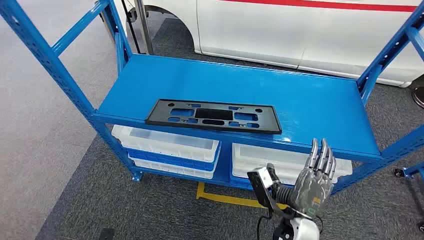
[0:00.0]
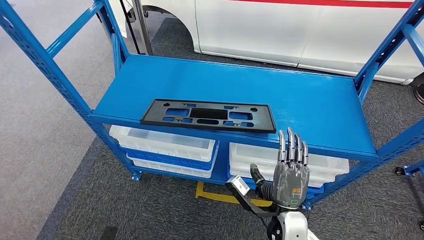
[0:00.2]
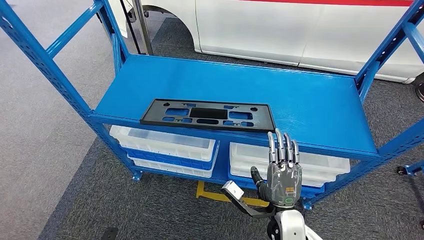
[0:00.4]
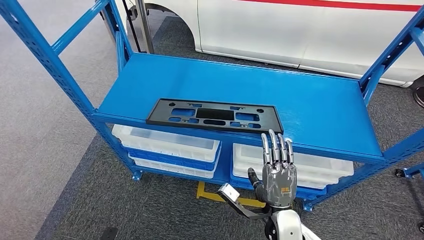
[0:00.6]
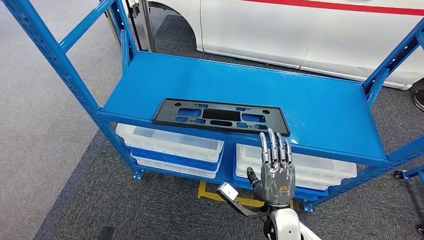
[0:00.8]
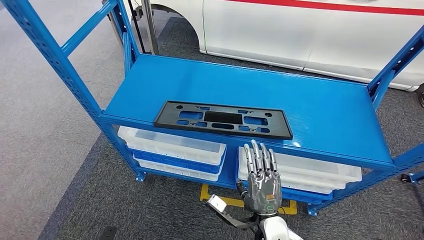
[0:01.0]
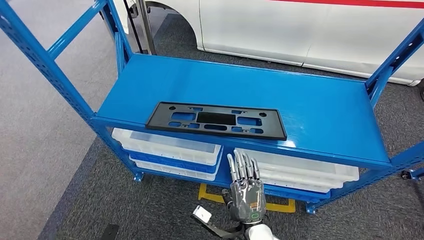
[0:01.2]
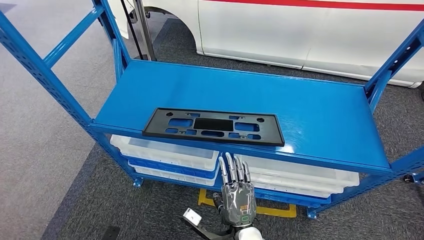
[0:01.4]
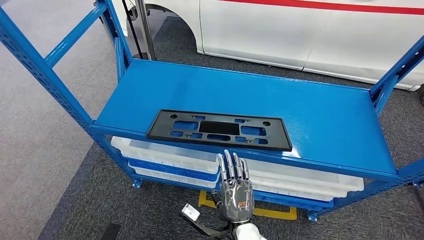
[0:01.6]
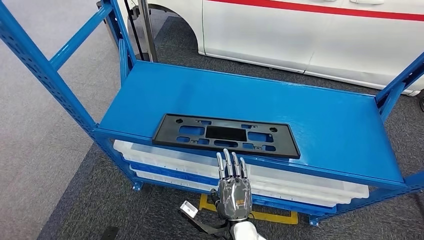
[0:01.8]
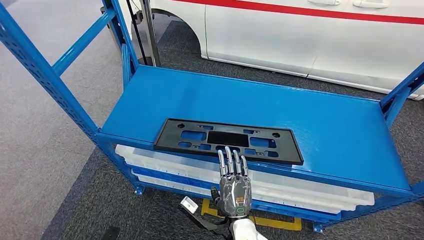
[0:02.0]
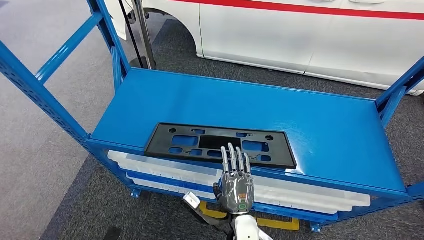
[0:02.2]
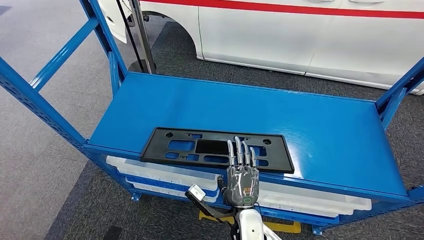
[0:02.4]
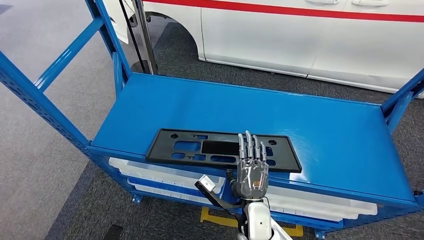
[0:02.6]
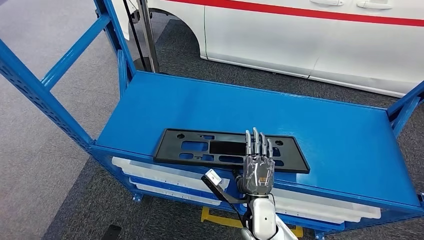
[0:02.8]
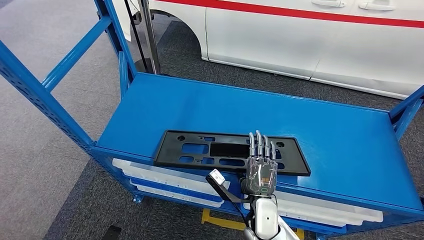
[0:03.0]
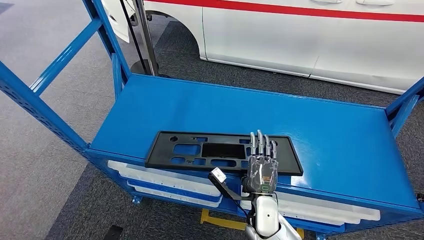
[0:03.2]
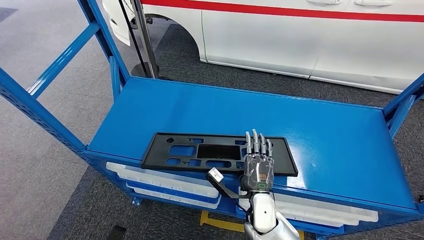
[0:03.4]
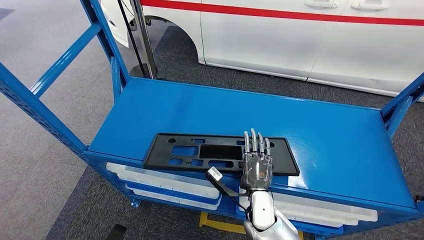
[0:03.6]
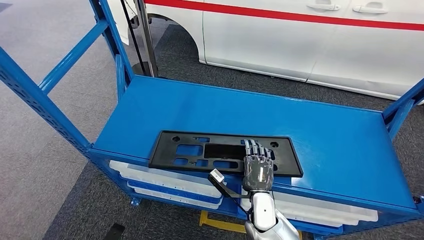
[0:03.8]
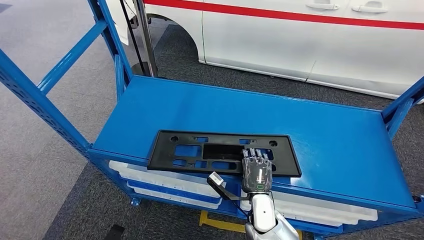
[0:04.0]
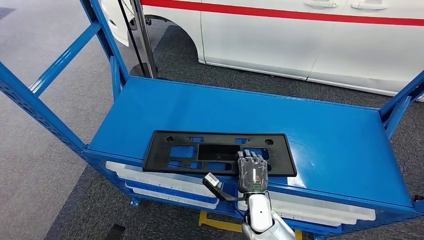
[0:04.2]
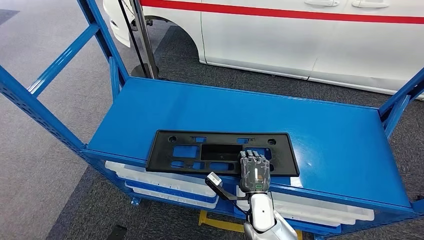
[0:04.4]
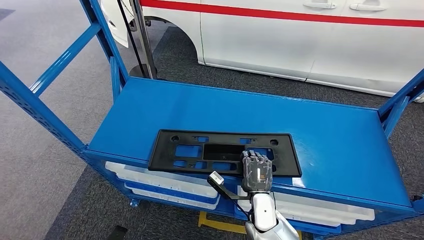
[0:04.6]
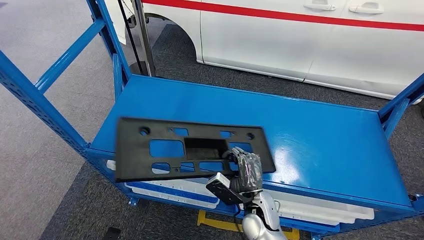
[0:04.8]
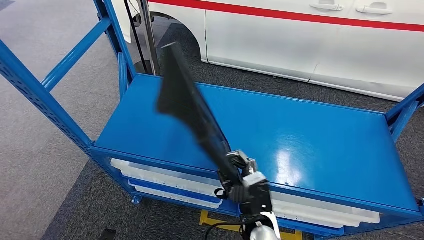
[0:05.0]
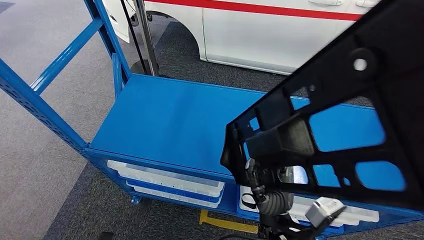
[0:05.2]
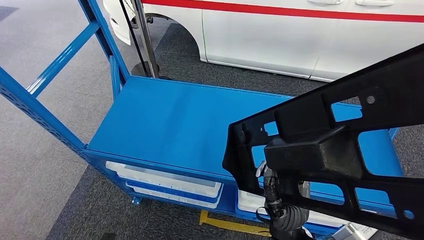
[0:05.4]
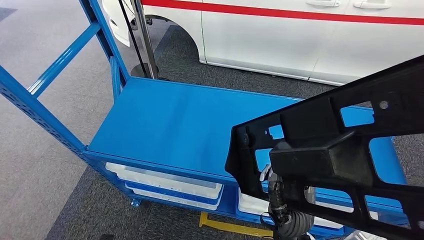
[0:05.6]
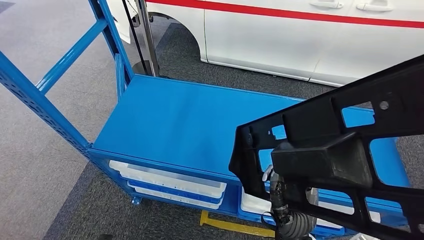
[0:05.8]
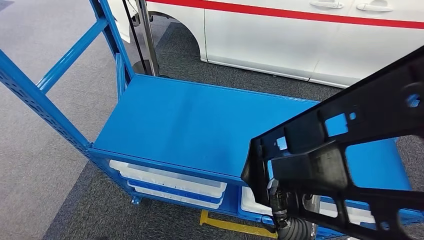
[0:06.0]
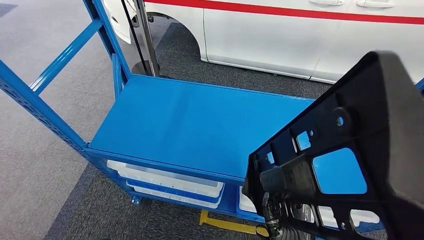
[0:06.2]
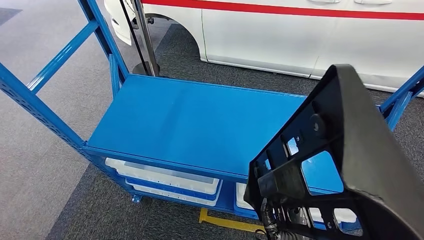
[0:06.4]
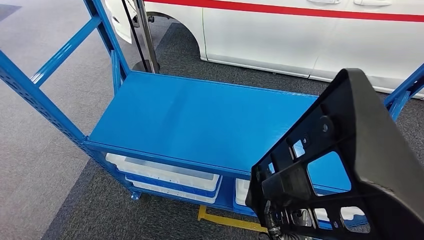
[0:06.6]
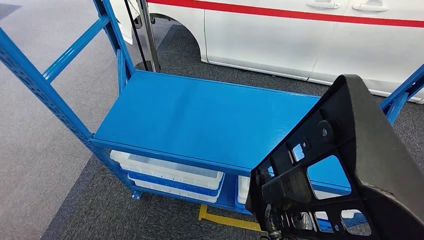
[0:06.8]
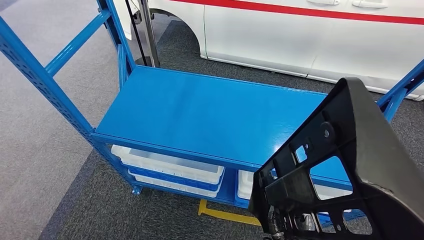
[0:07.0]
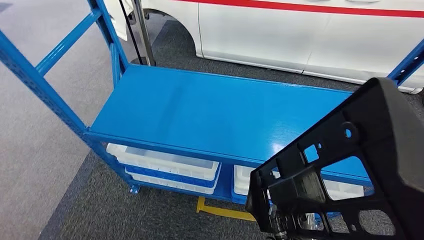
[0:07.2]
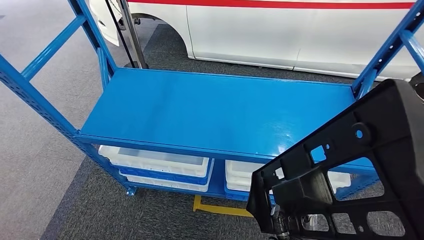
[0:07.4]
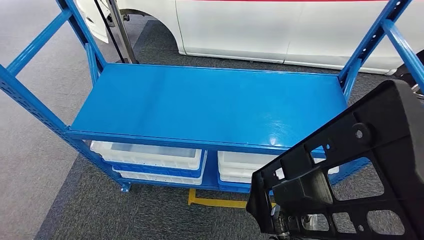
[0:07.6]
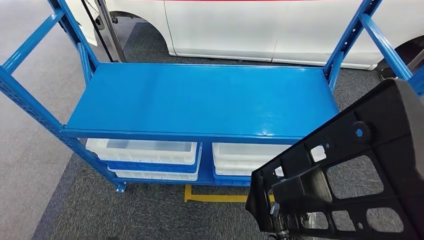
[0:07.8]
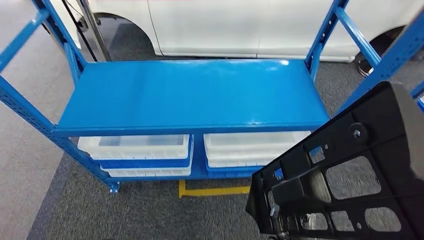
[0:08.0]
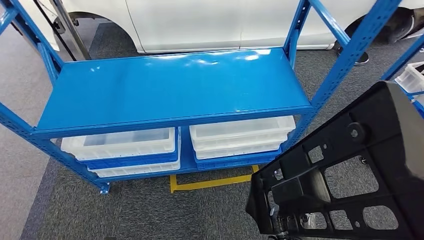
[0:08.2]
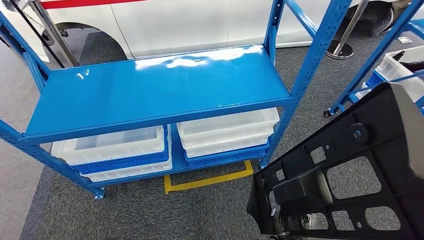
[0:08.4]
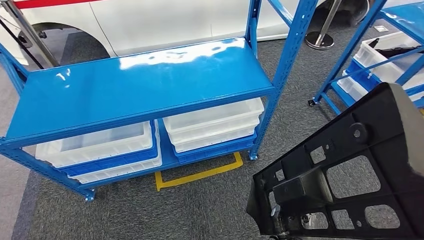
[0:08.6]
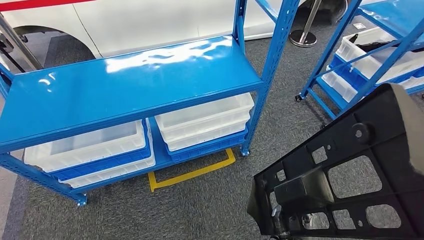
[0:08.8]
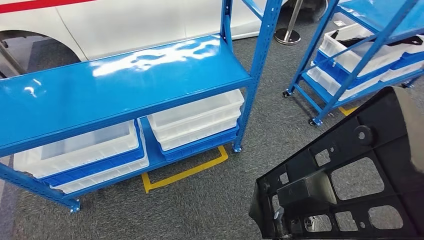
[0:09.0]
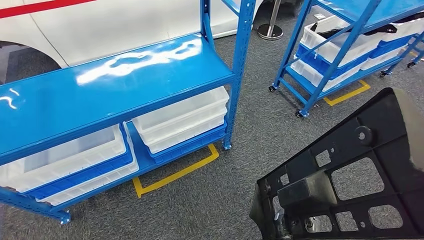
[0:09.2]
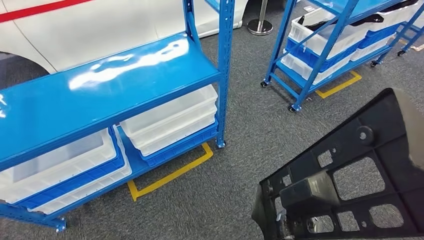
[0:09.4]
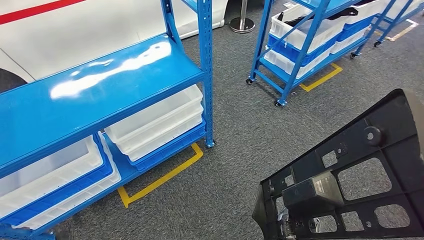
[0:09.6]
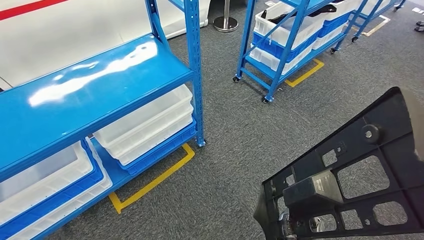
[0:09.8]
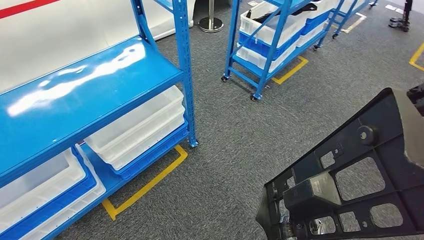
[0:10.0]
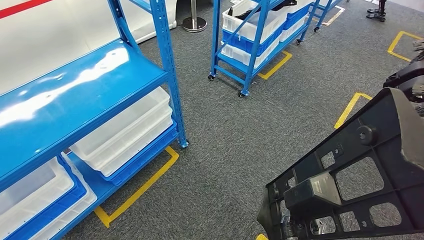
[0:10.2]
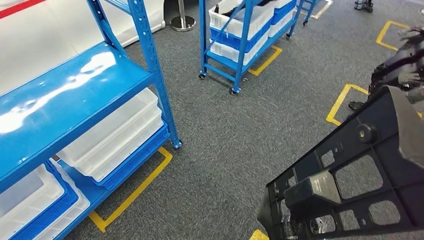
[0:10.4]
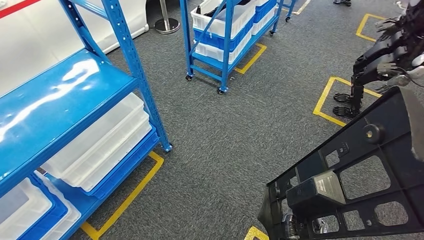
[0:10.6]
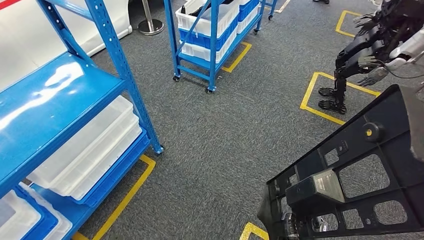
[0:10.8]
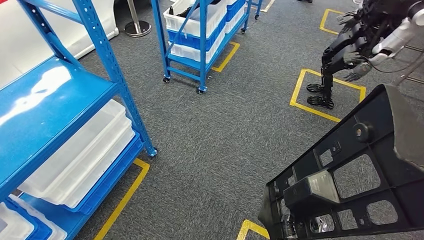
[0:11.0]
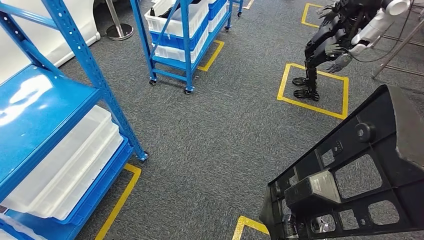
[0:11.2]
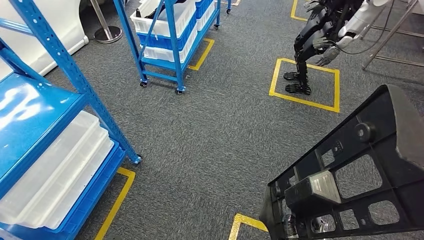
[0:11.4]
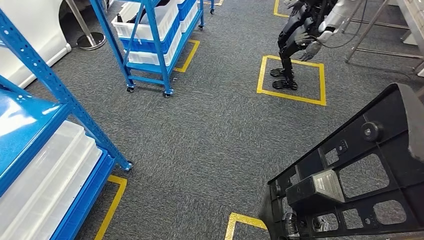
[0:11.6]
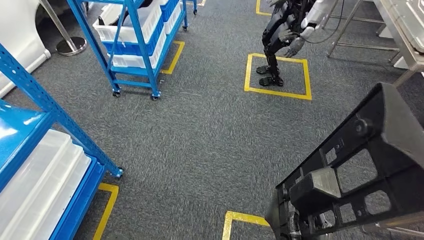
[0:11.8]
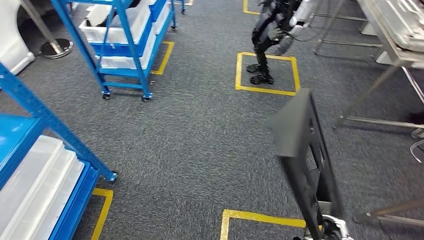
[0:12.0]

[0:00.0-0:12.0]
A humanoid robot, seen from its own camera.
Step, 0:00.0 to 0:05.6: Pick up the large material from the shelf.

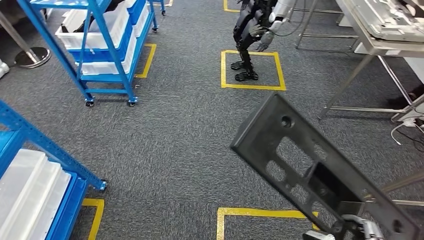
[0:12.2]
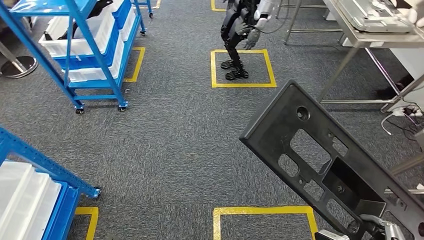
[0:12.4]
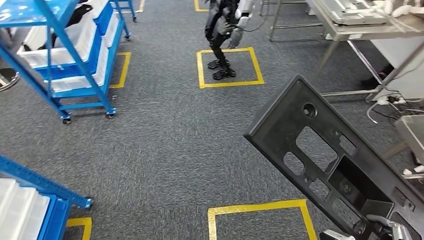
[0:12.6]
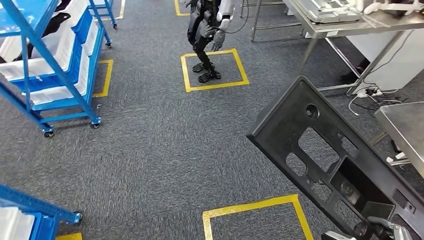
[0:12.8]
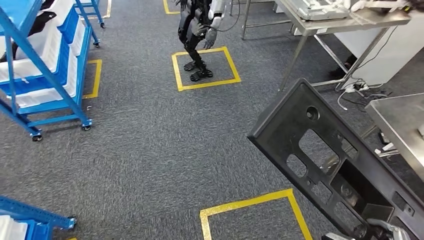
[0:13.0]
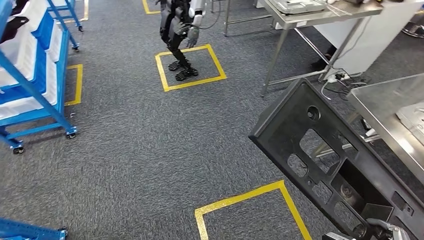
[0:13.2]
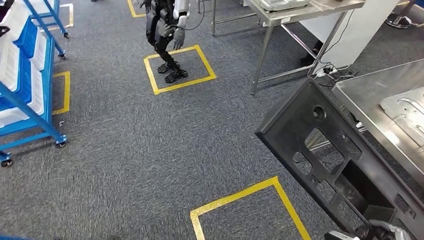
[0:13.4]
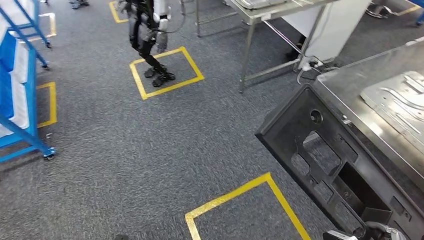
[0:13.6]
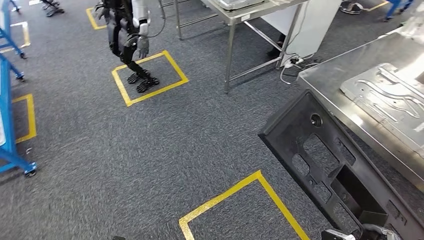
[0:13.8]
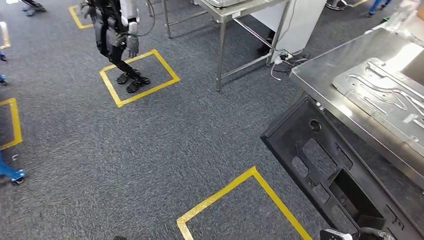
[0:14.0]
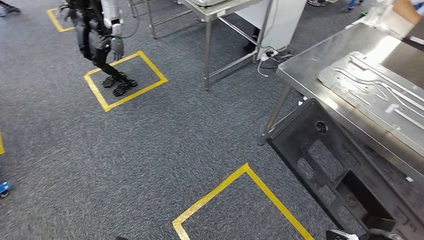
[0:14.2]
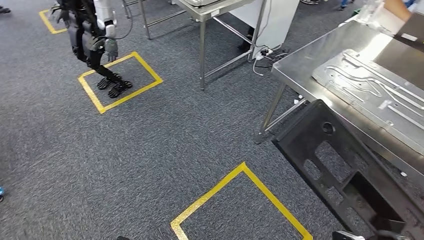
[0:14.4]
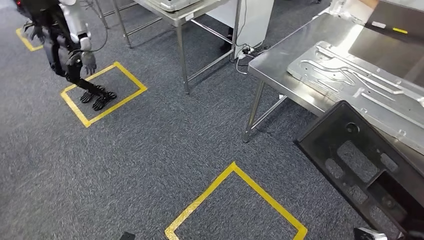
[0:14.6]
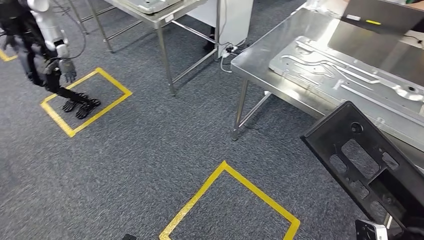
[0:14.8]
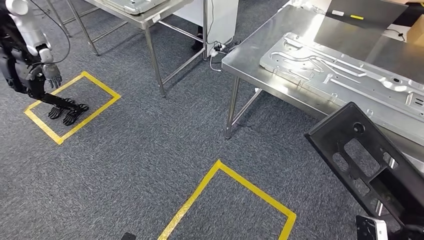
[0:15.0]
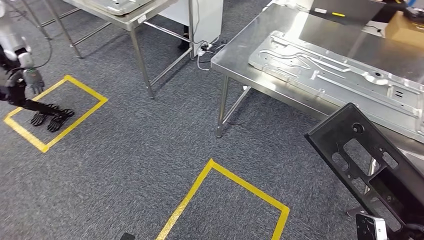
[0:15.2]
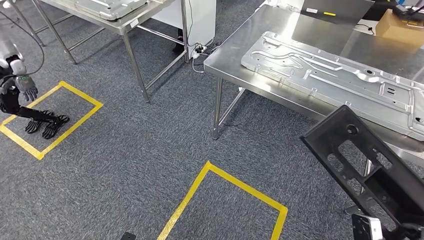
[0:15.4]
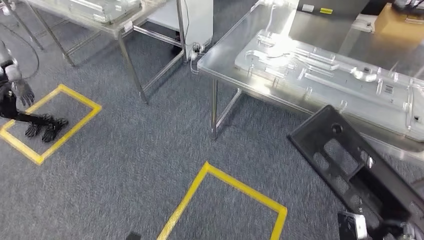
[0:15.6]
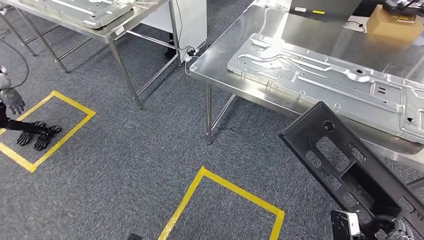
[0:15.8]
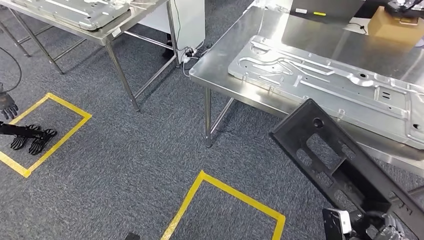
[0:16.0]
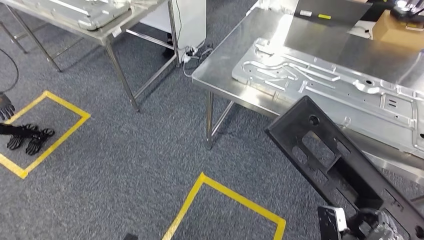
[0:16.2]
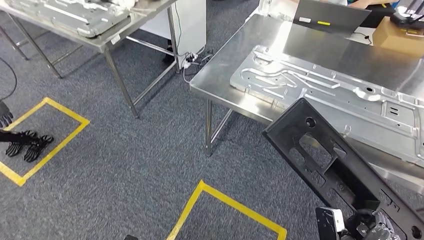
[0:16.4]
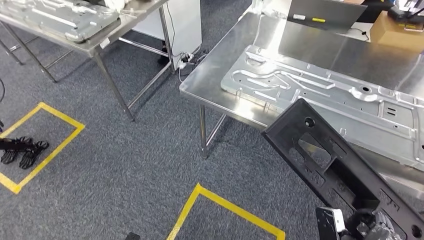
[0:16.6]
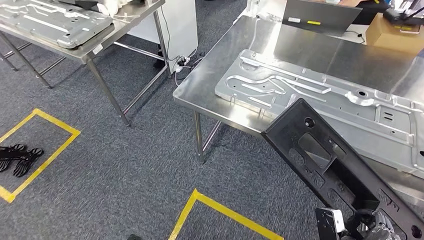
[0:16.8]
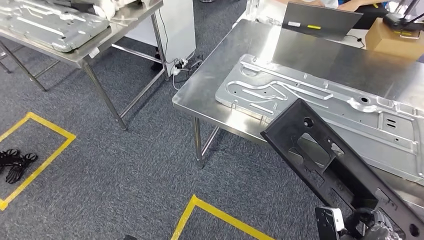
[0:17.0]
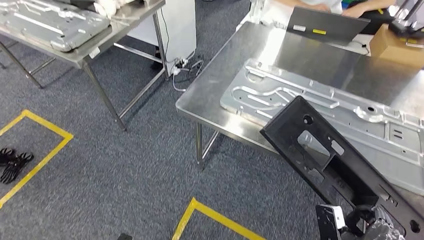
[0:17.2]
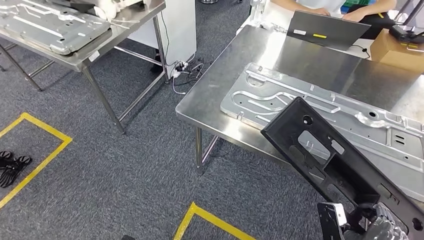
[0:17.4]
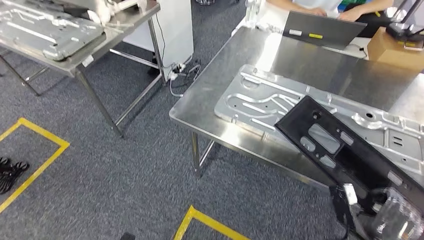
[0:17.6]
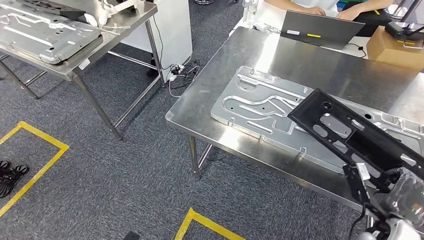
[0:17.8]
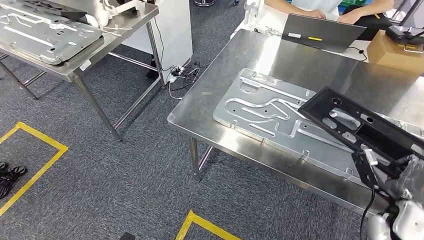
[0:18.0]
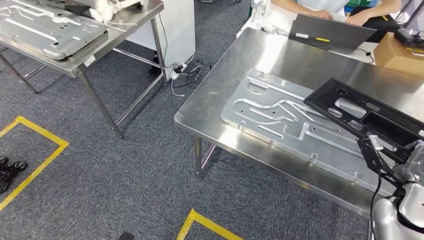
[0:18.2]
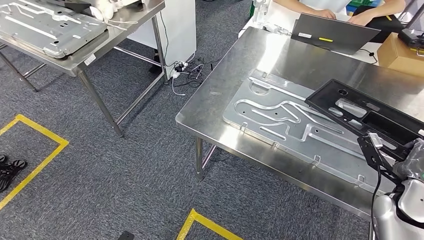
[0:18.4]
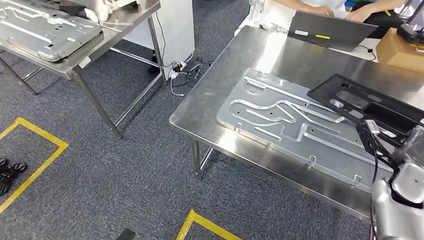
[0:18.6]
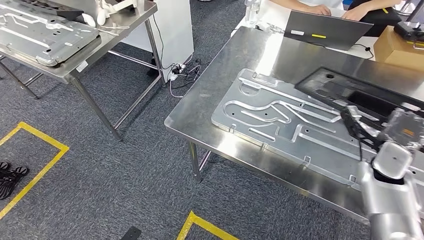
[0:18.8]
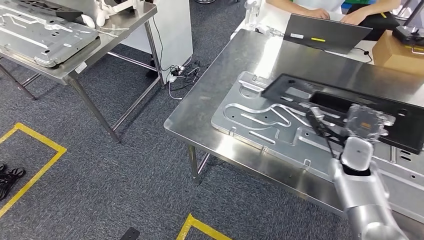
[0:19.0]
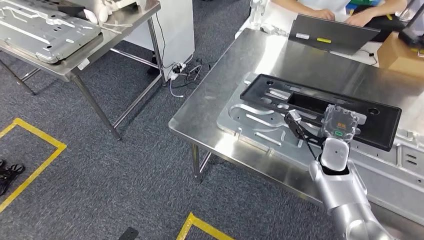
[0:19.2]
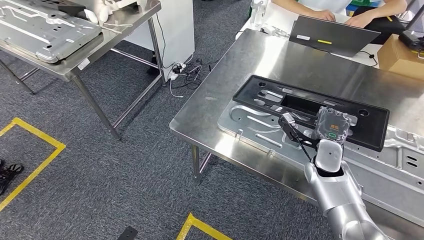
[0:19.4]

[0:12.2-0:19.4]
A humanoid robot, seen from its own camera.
Step, 0:12.2 to 0:18.6: Move the large material to the front of the workbench.
